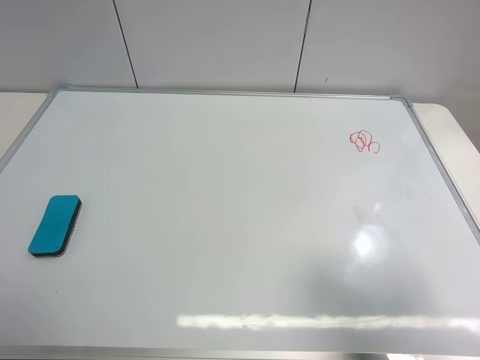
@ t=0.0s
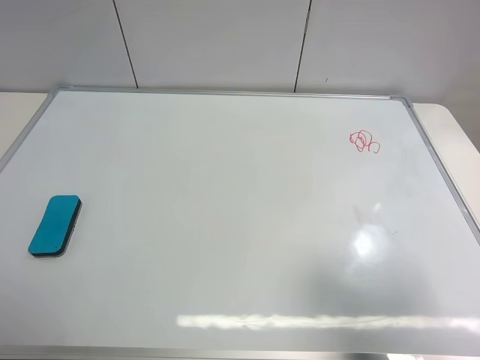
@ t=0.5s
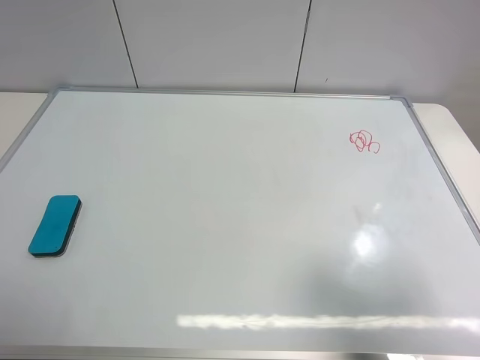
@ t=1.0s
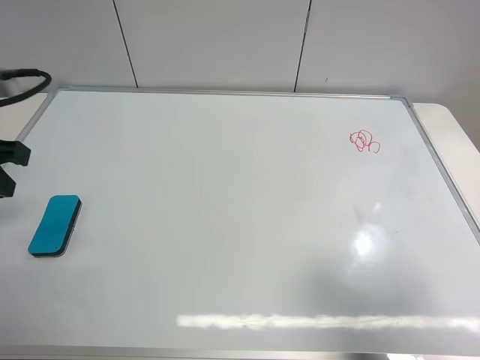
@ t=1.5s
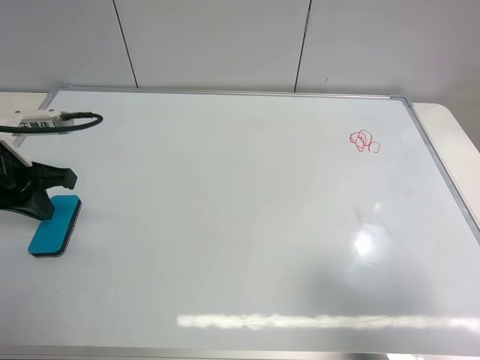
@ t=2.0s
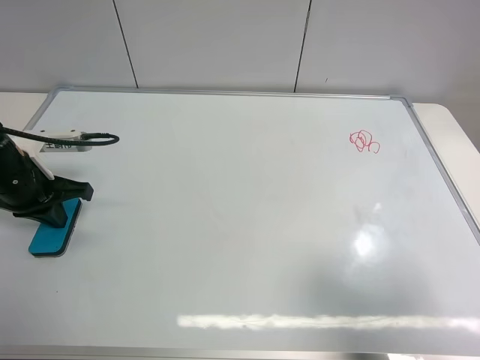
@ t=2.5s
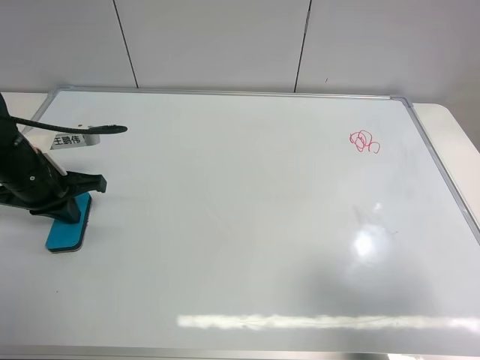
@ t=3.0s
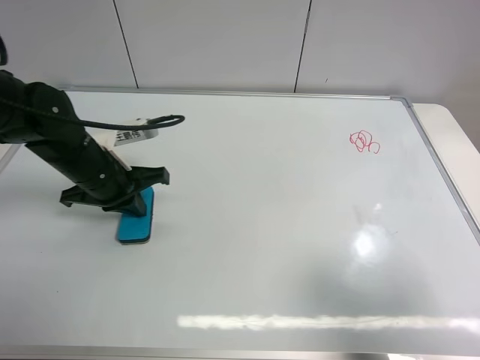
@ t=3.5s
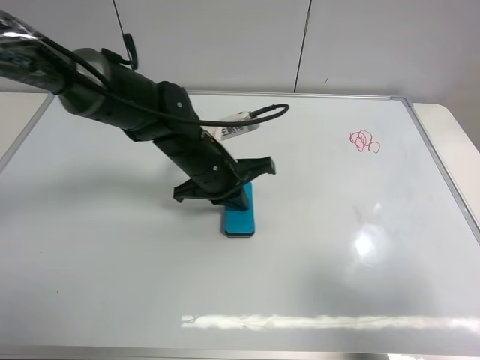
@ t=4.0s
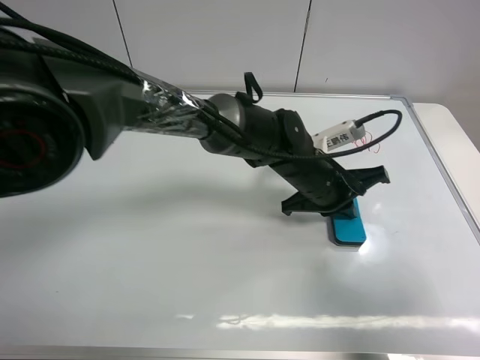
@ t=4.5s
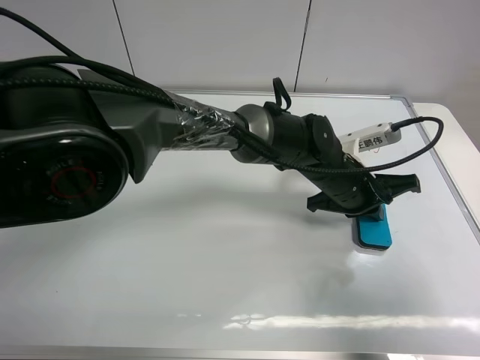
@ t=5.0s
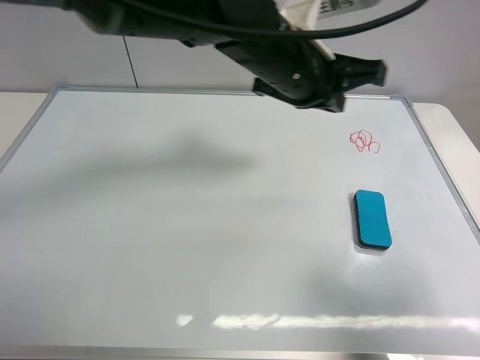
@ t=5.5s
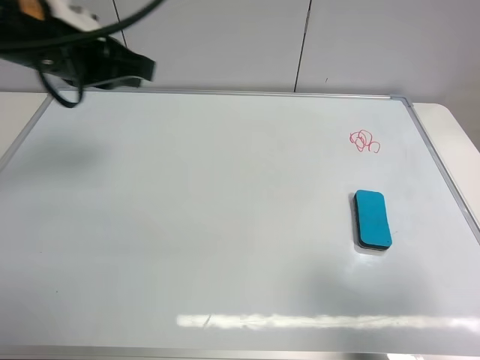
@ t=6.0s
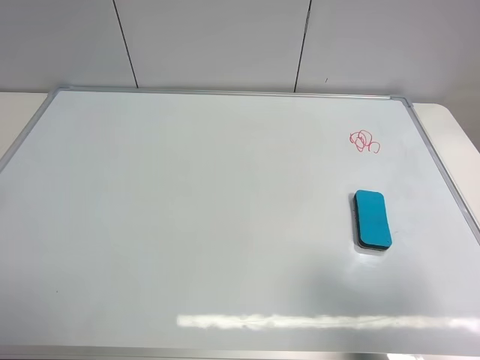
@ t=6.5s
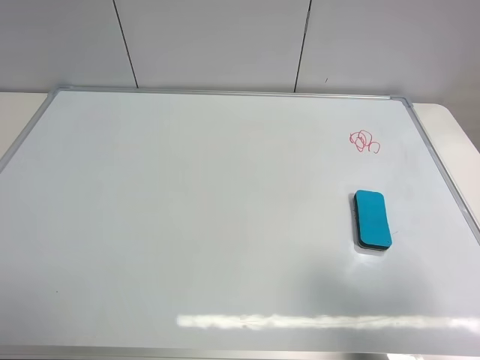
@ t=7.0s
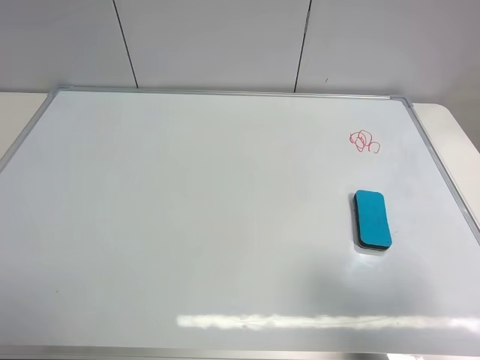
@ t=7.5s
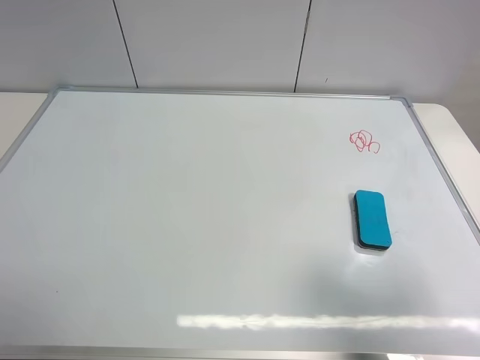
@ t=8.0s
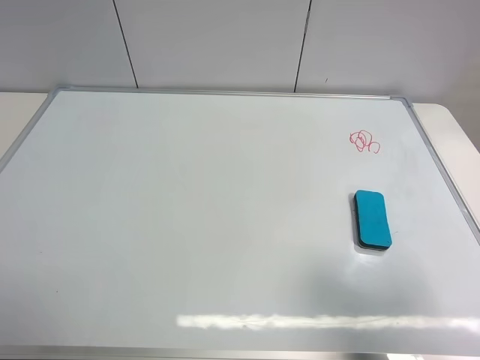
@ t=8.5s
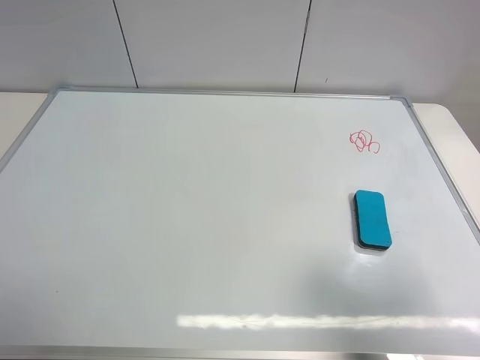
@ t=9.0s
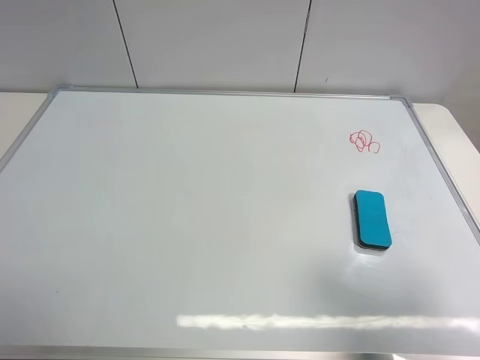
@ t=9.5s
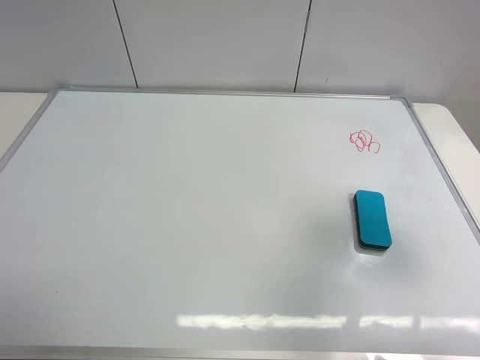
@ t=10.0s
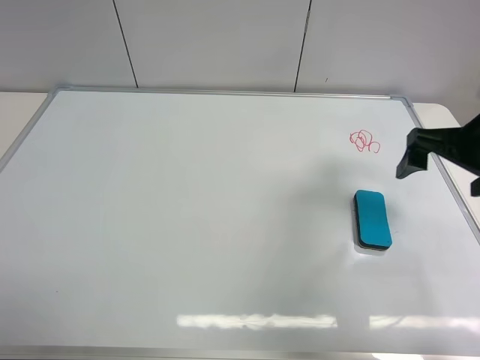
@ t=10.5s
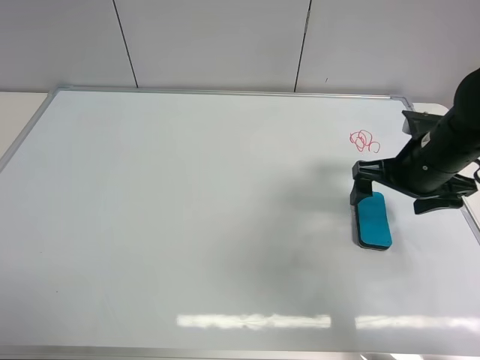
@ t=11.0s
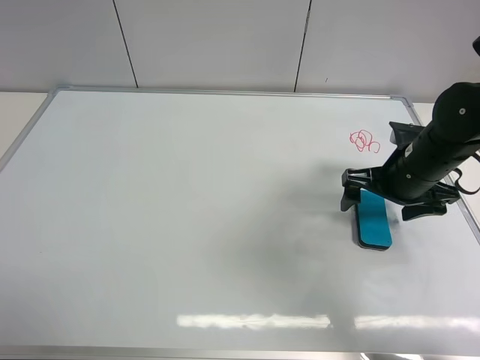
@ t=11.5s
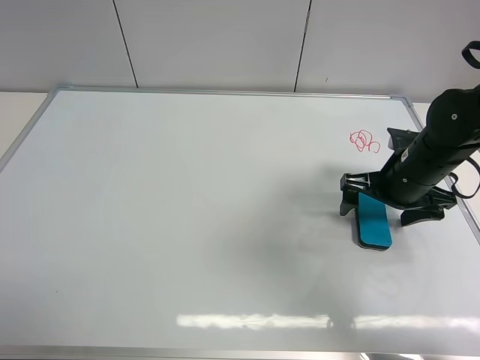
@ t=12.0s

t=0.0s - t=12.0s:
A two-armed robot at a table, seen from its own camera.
Task of the whole recording: use the left gripper to place the eraser in the right, use the right gripper to pick up the eraser, wipe the notes on the whiteboard clean, and then put it down.
Step, t=0.0s - t=5.0s: Move the board eraser to the right of the whiteboard with left gripper.
t=0.0s - t=2.0s: The left gripper heads forward and downward, covering approximately 25 cm, and closes.
t=2.0s - t=4.0s: The left gripper moves to the right, about 25 cm.
t=4.0s - t=6.0s: The left gripper travels upward and to the left by about 25 cm.
t=6.0s - t=8.0s: The left gripper goes some 30 cm backward and to the left, and opens its fingers.
t=8.0s - t=10.0s: The right gripper goes about 10 cm forward.
t=10.0s - t=12.0s: The right gripper heads downward, forward and to the left, covering about 25 cm.

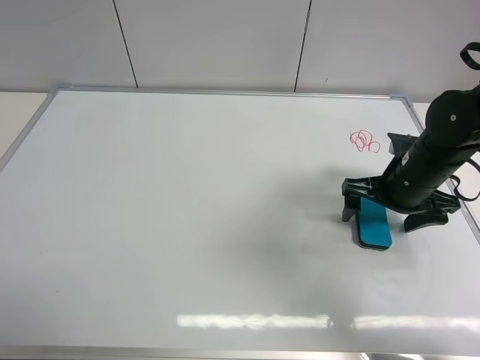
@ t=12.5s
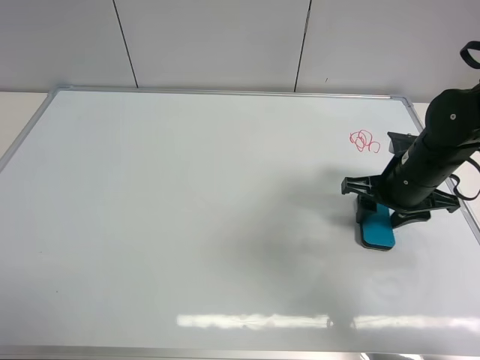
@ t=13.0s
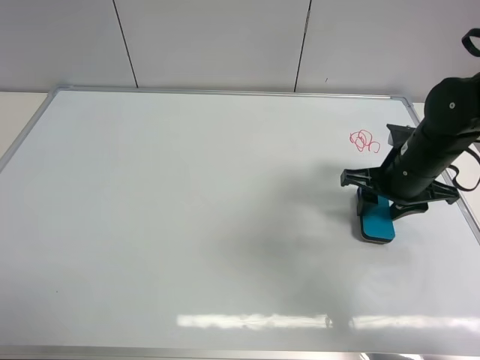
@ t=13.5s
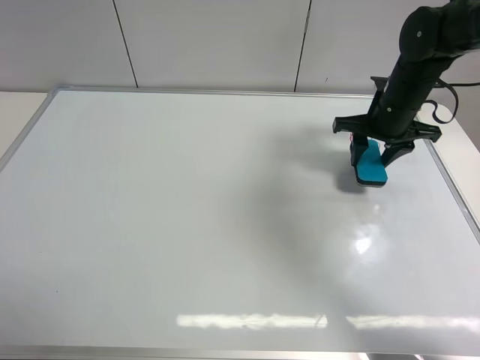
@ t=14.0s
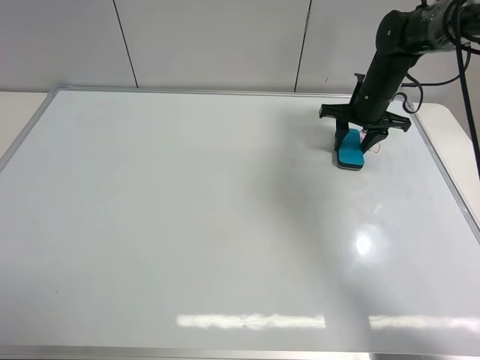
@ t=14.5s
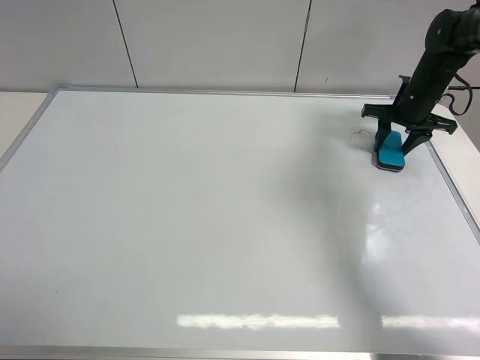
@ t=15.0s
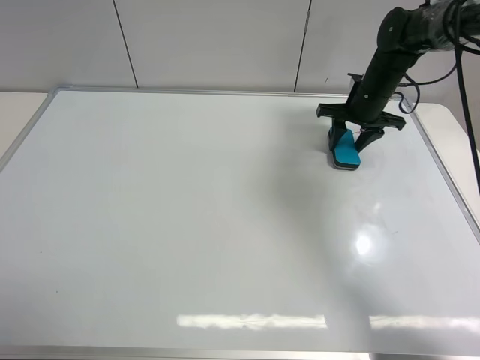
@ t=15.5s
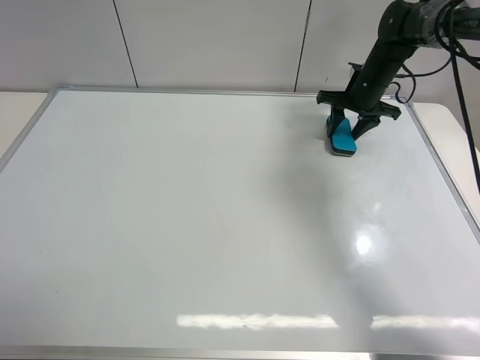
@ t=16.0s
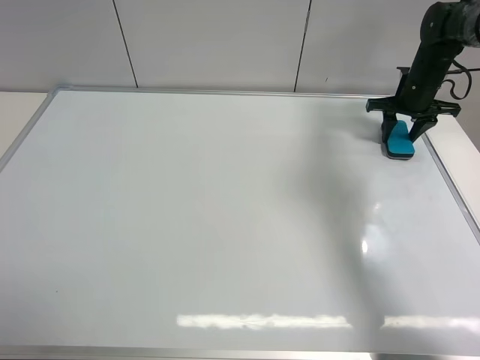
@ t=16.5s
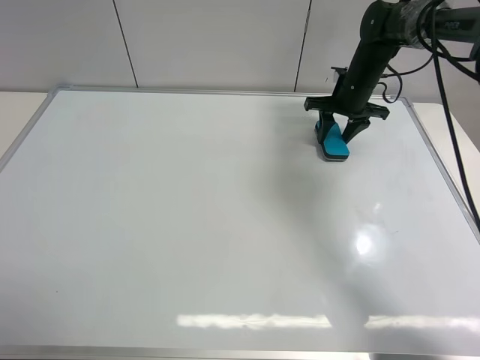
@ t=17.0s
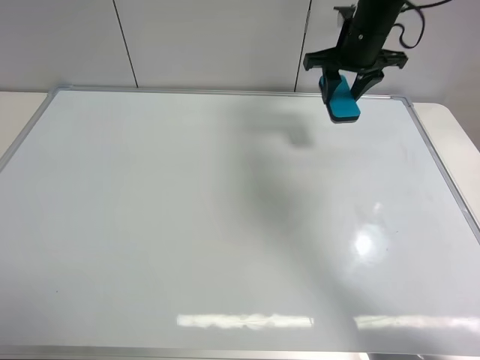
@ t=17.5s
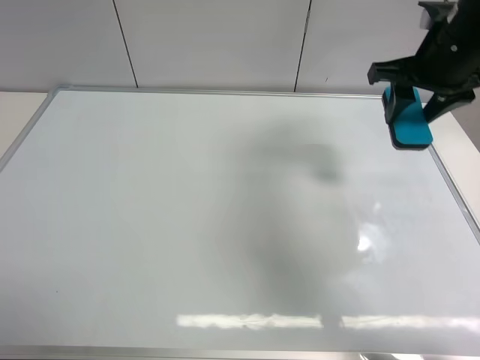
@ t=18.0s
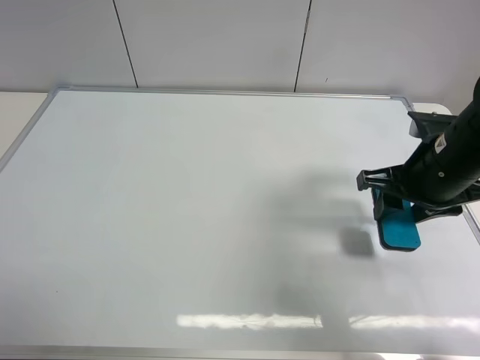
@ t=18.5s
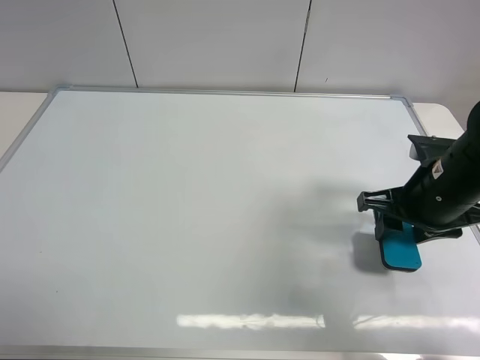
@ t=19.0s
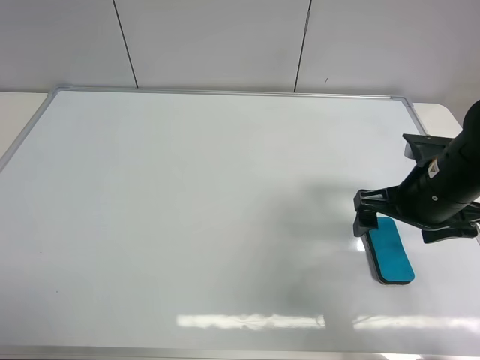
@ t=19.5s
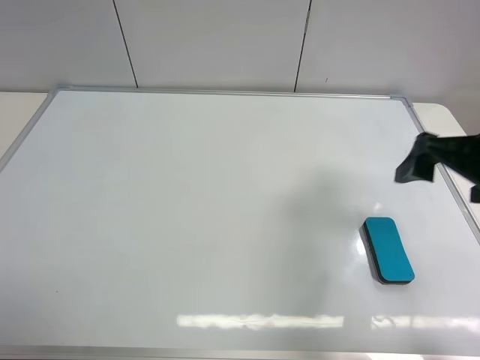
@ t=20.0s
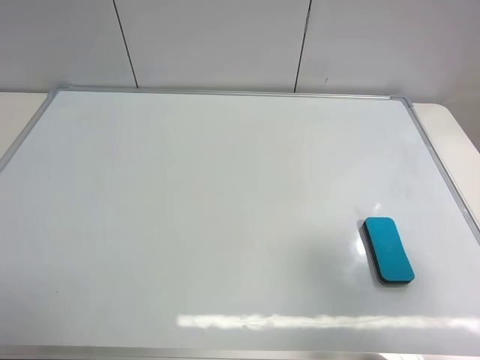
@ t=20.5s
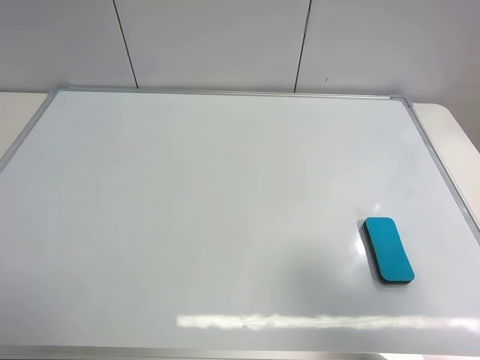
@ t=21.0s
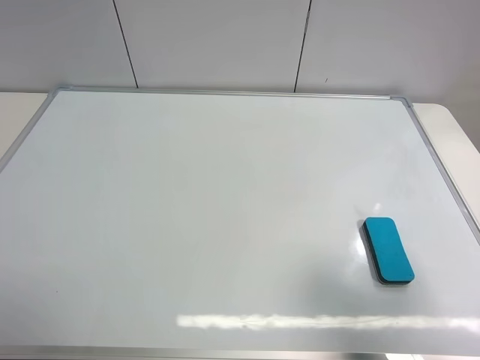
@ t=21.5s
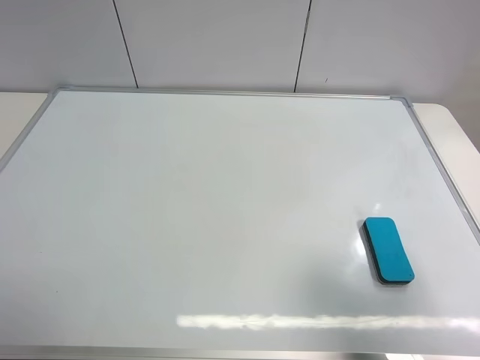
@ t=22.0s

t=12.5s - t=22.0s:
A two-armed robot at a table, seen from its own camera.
Task of the whole recording: use the left gripper to place the eraser in the right, use the right gripper to pick up the eraser, wipe the notes on the whiteboard clean, and then put it down.
Step, t=14.0s - t=17.0s: Wipe off the writing on the board with right gripper.
Step, t=17.5s - t=19.0s: Place the board eraser on the right side of board with right gripper.
t=12.5s - t=14.5s: The right gripper heads forward, covering some 20 cm, and closes.
t=14.5s - t=16.5s: The right gripper moves left and right over some 10 cm, changing direction 2 times.
t=16.5s - t=18.0s: The right gripper moves backward, upward and to the left, roughly 25 cm.
t=18.0s - t=20.0s: The right gripper travels backward by about 15 cm, and opens.
t=20.0s - t=22.0s: The right gripper is displaced backward by about 20 cm.
